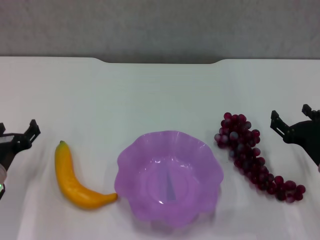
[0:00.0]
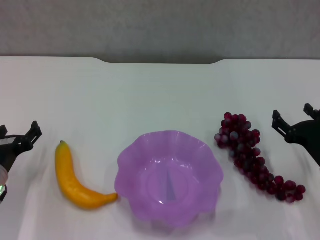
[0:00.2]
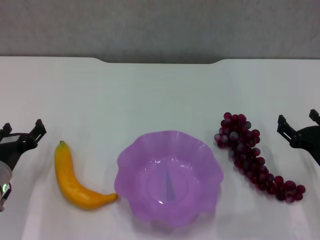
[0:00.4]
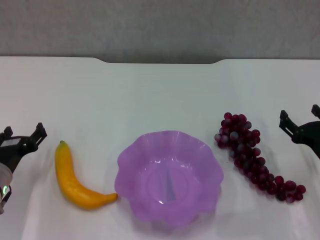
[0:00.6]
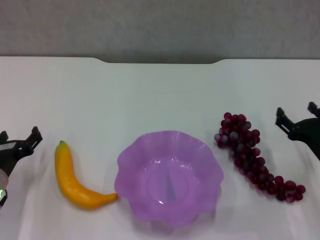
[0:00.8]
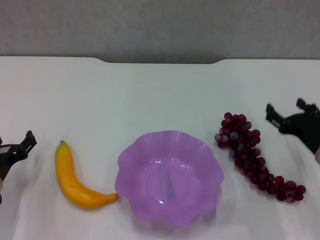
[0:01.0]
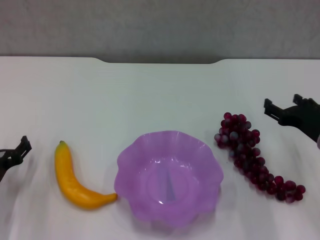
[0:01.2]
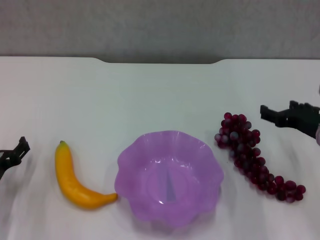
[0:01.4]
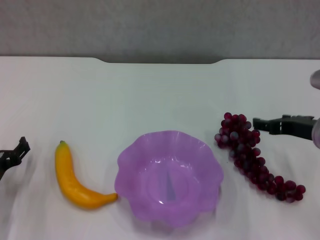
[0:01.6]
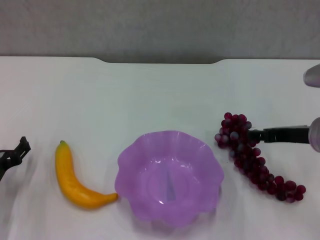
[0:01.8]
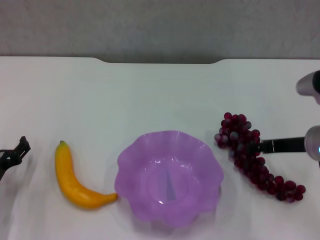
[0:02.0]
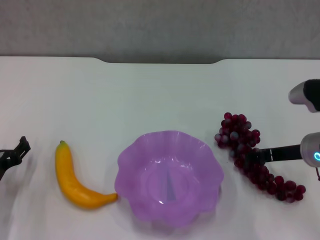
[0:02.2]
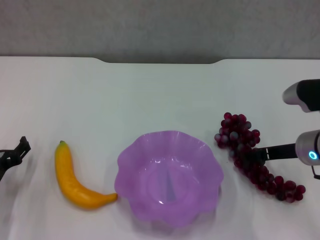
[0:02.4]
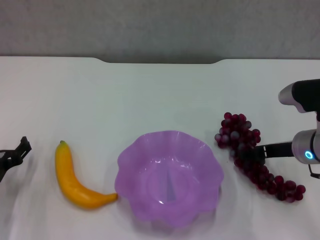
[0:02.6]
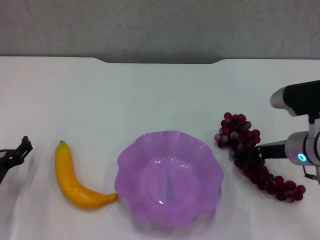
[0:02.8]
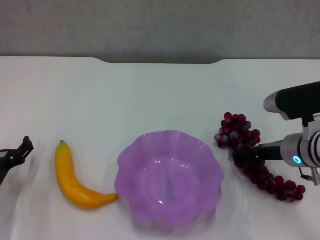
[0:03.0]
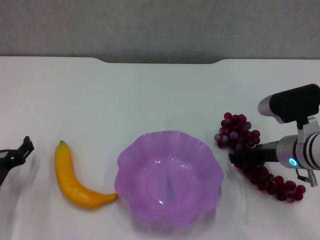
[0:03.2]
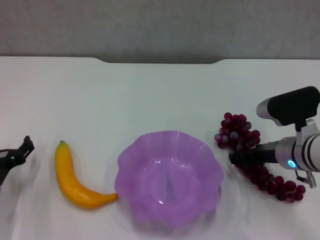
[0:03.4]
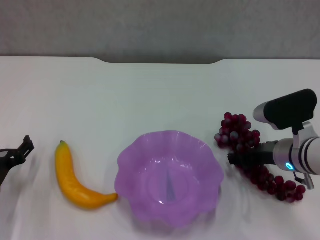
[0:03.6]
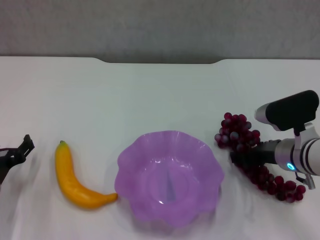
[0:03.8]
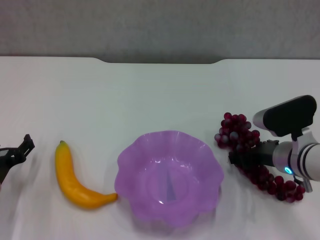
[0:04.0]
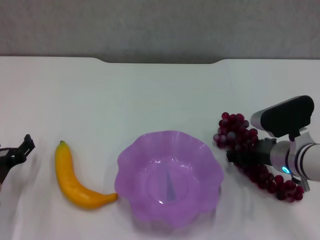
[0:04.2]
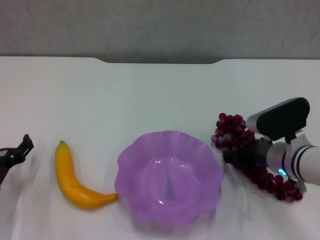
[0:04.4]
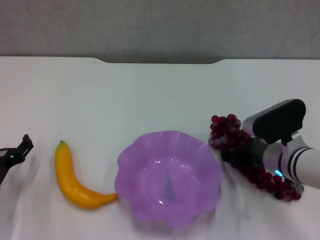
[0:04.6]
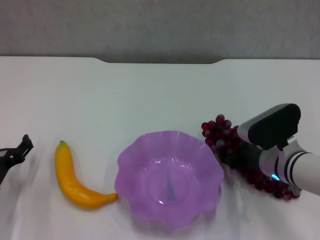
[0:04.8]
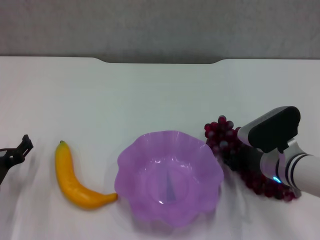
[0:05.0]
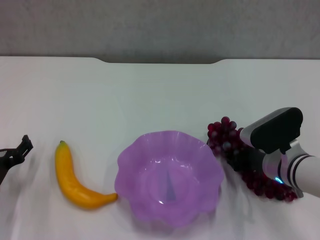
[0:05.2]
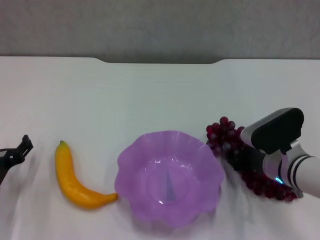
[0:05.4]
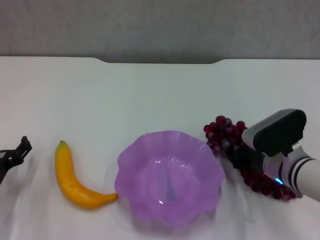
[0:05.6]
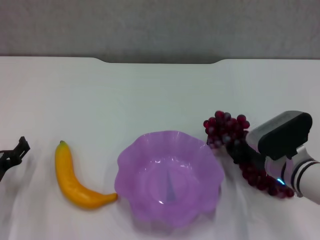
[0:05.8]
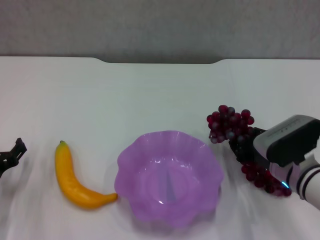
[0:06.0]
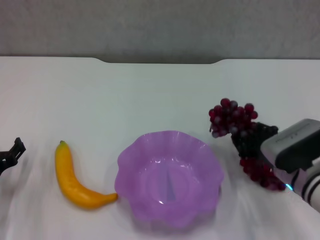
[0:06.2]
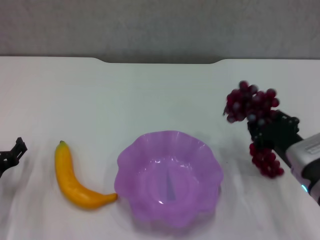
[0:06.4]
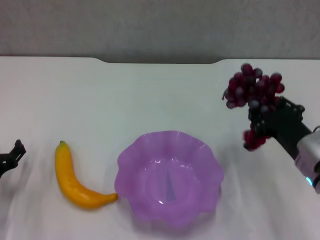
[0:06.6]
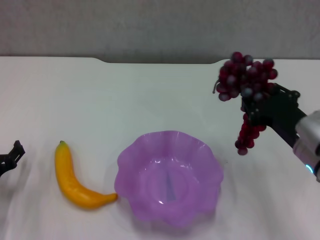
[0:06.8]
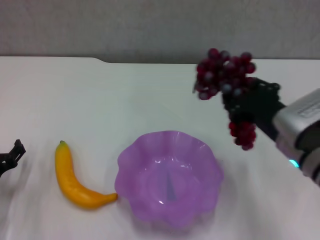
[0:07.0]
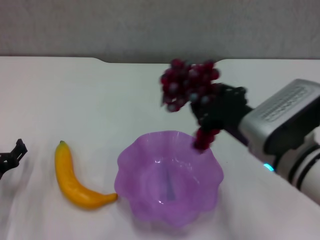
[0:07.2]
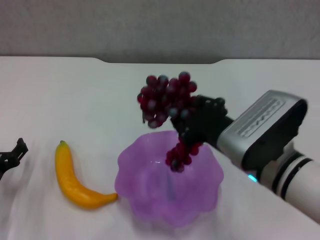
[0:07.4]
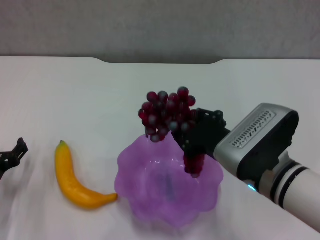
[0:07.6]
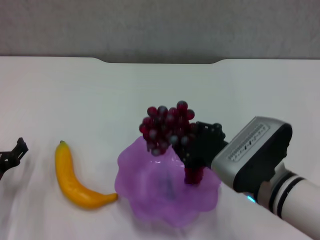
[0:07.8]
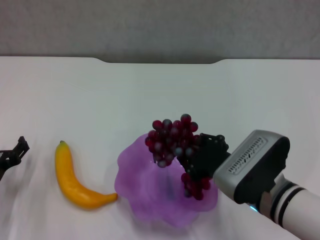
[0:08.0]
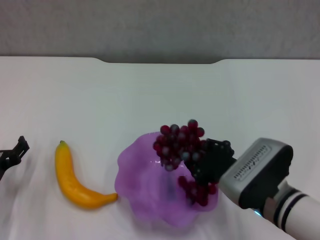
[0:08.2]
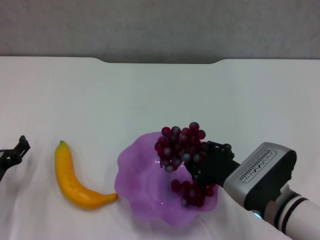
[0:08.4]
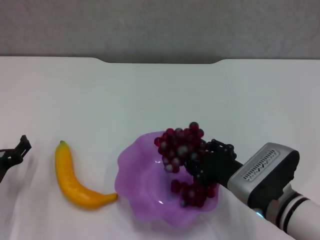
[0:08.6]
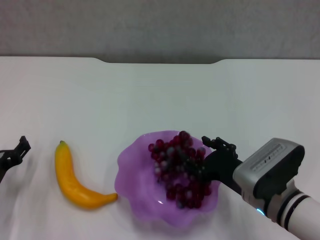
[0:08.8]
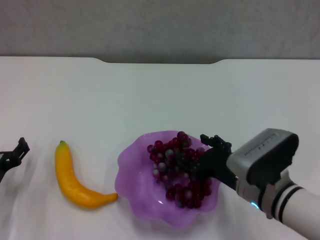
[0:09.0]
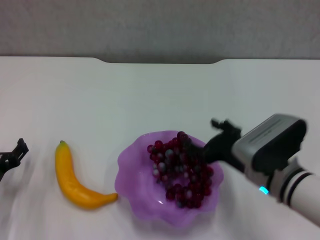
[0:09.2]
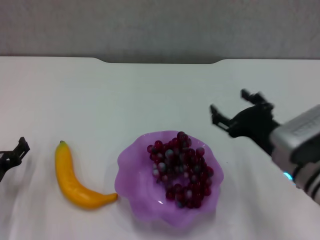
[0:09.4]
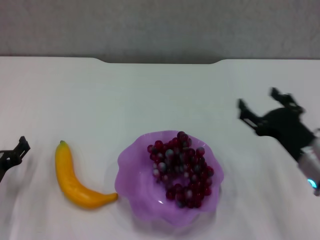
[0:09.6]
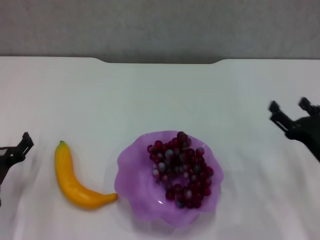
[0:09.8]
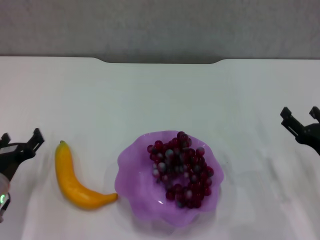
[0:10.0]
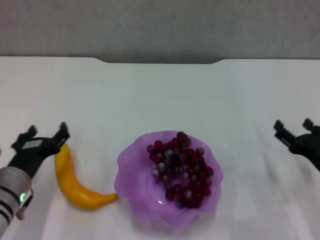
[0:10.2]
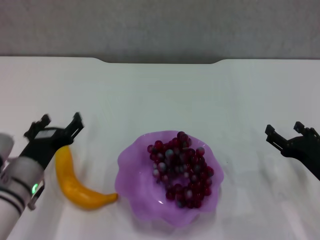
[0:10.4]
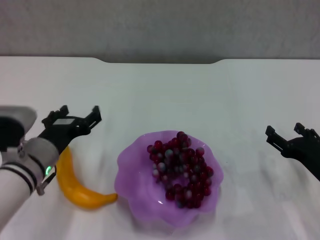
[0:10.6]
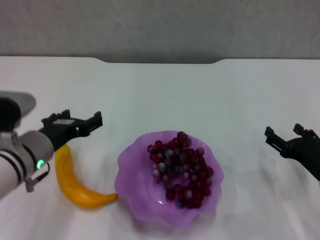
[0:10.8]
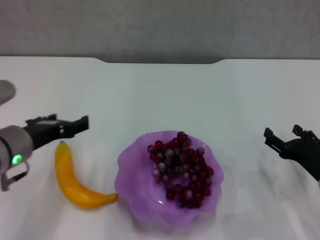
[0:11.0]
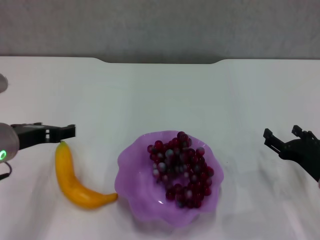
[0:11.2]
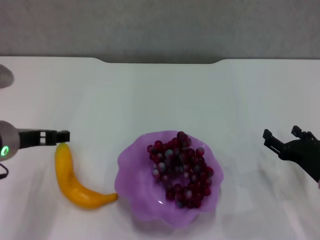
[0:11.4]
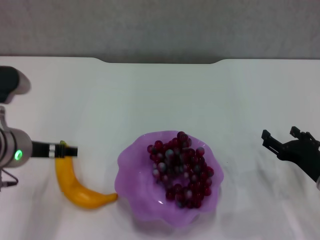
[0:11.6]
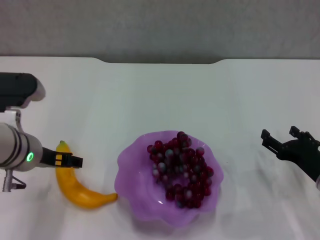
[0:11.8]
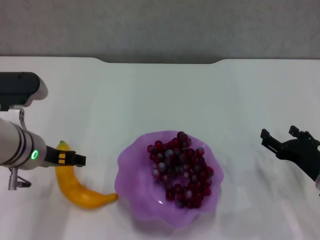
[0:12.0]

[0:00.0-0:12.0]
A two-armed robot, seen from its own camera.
Step, 0:00.0 to 0:05.2: Grasp the grape with right gripper.
Step, 0:05.4 to 0:09.2: Place the grape in the purple plate with right gripper.
0:00.0 to 0:01.6: The right gripper heads upward, covering some 10 cm.
0:01.6 to 0:03.0: The right gripper changes place by roughly 5 cm.
0:03.0 to 0:04.4: The grippers make only small movements.
0:04.4 to 0:06.0: The right gripper closes its fingers.
0:06.0 to 0:07.6: The right gripper heads upward, to the left and backward, covering approximately 15 cm.
0:07.6 to 0:09.0: The right gripper heads downward, covering roughly 5 cm, and opens up.
0:09.0 to 0:10.4: The right gripper moves to the right, approximately 15 cm, while the left gripper is displaced to the right by approximately 10 cm.
0:10.4 to 0:12.0: The left gripper shifts approximately 10 cm upward.

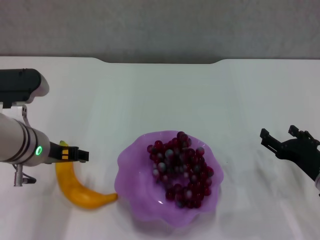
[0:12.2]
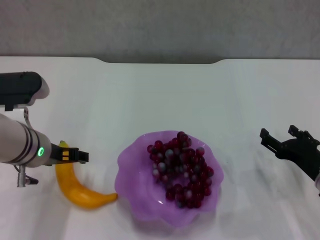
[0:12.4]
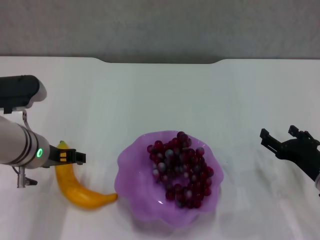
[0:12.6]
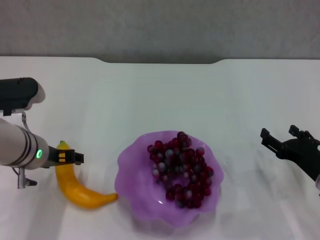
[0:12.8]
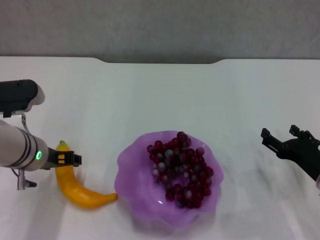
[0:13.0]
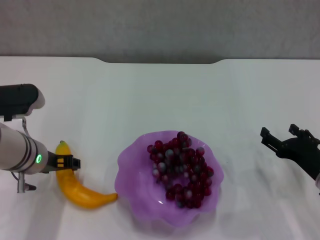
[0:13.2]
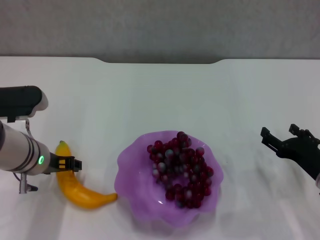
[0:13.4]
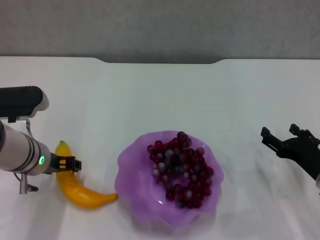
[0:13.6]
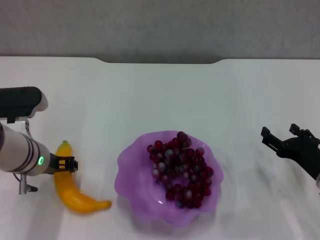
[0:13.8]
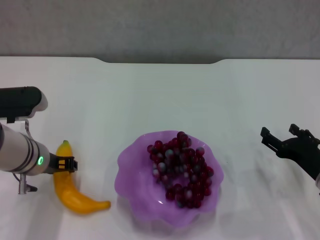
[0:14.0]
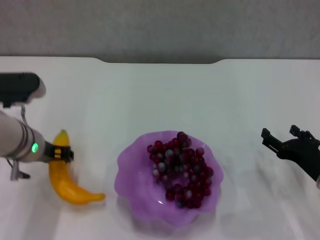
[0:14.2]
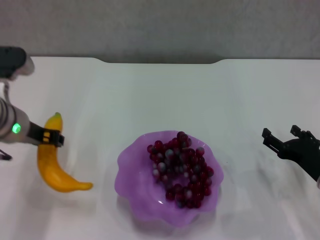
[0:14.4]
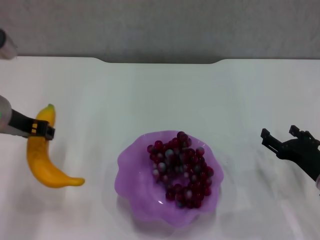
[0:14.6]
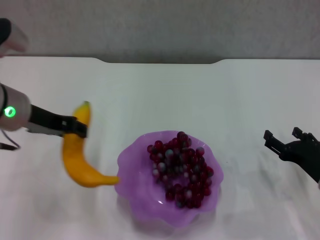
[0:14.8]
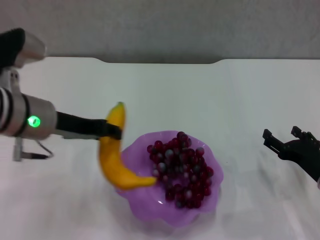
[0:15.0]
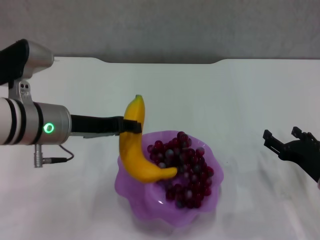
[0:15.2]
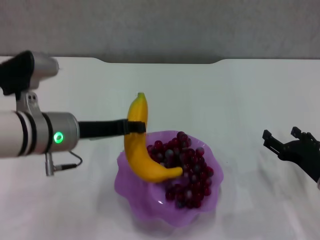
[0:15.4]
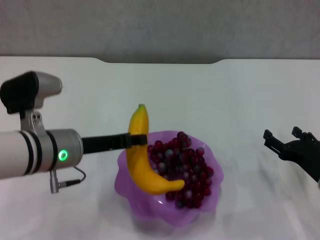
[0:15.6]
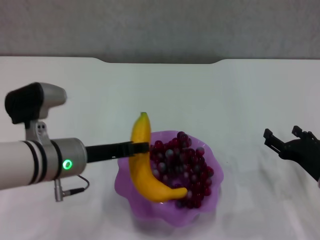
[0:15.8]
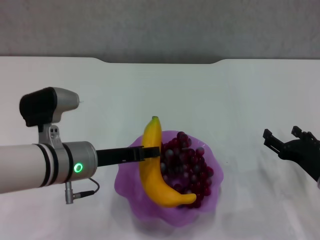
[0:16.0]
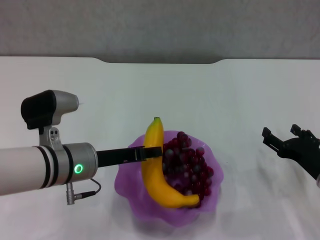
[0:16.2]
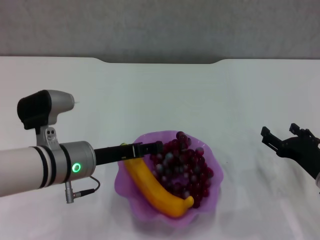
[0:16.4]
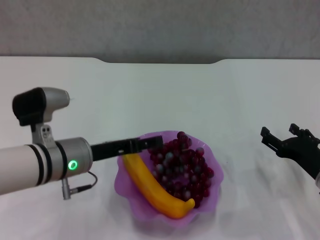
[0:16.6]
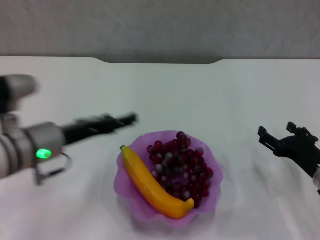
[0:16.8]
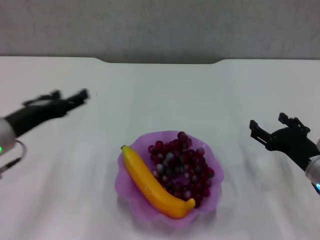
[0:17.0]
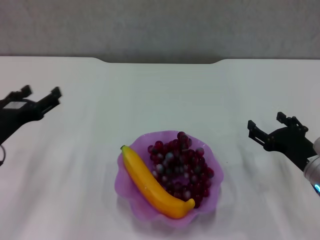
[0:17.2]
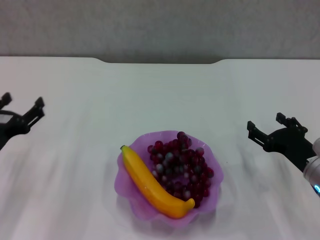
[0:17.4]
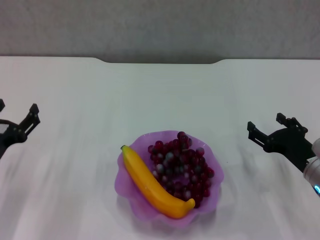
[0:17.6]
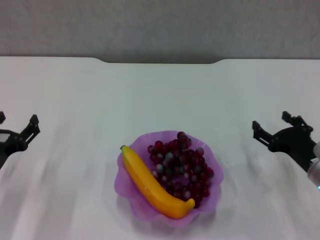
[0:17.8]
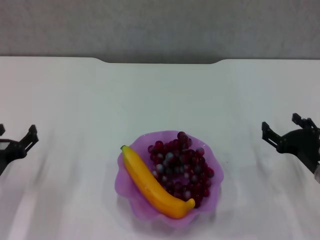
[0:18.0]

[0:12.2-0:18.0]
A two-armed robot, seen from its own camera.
Step, 0:14.0 to 0:16.6: Place the banana in the purple plate with left gripper.
0:12.2 to 0:13.6: The grippers make only small movements.
0:13.6 to 0:15.0: The left gripper heads upward, covering roughly 10 cm, and closes.
0:15.0 to 0:16.6: The left gripper heads downward, covering about 10 cm, and opens up.
0:16.6 to 0:18.0: The left gripper moves to the left and downward, some 15 cm, and opens.

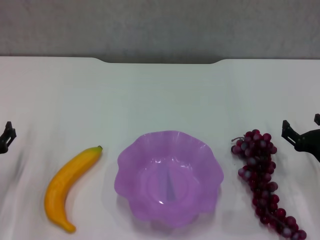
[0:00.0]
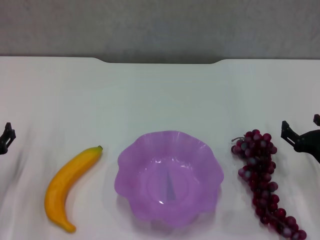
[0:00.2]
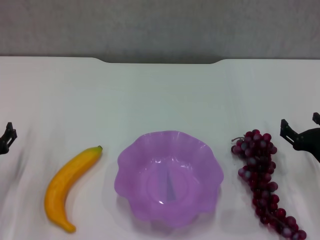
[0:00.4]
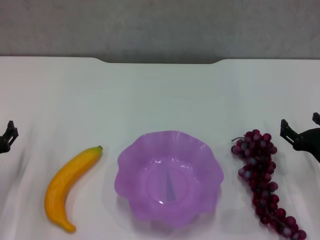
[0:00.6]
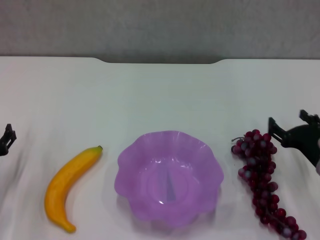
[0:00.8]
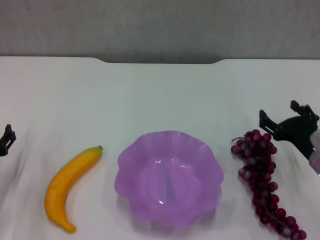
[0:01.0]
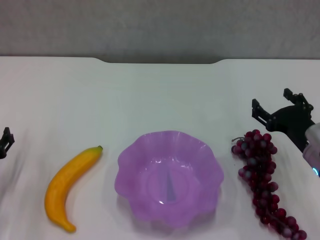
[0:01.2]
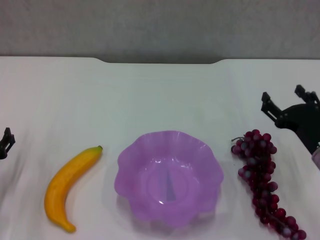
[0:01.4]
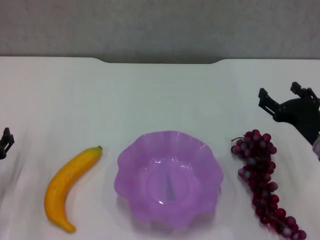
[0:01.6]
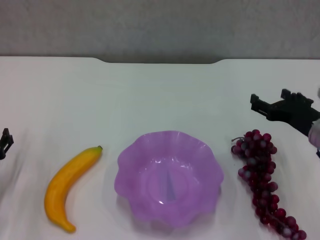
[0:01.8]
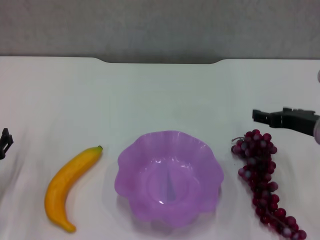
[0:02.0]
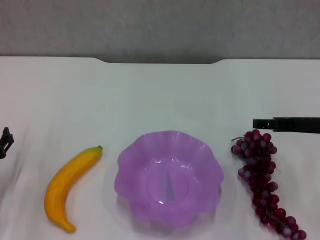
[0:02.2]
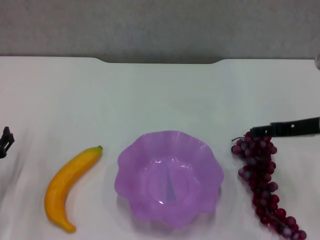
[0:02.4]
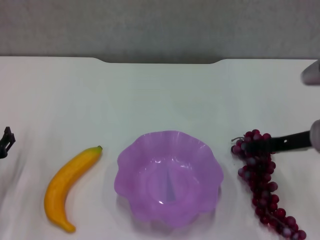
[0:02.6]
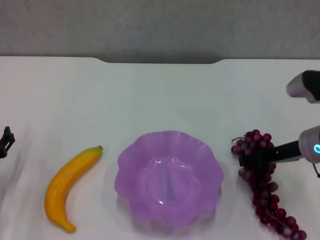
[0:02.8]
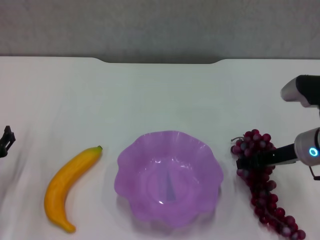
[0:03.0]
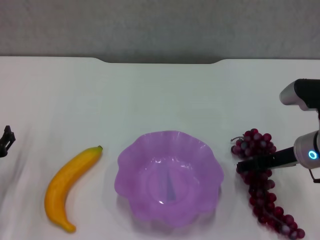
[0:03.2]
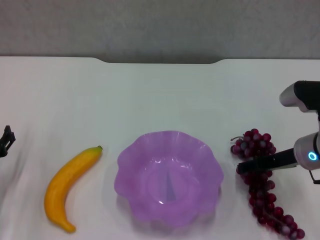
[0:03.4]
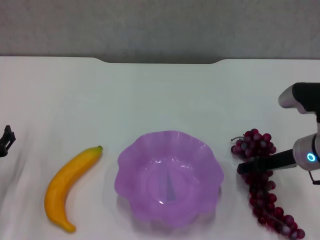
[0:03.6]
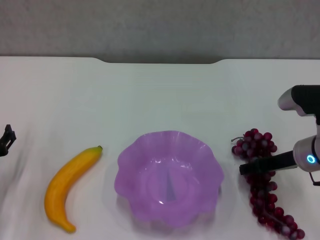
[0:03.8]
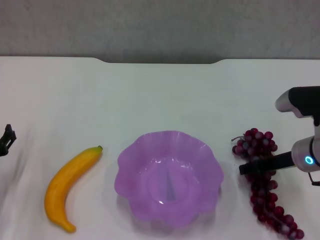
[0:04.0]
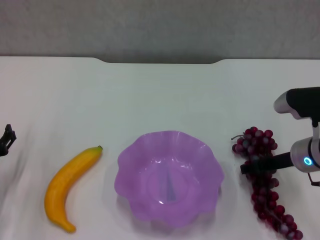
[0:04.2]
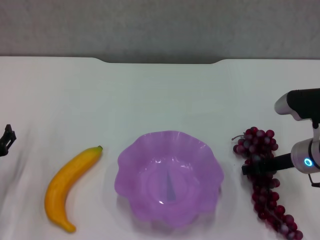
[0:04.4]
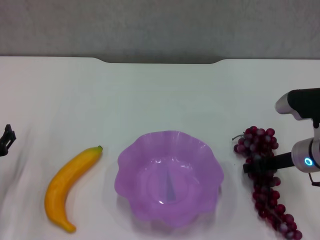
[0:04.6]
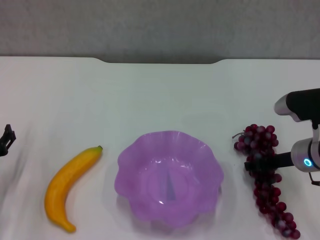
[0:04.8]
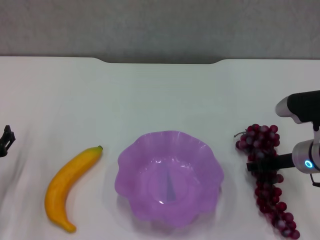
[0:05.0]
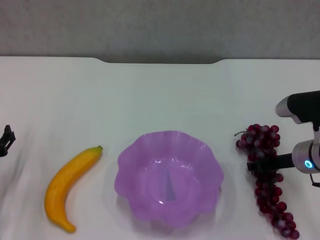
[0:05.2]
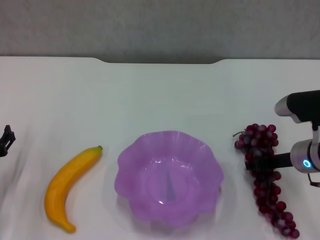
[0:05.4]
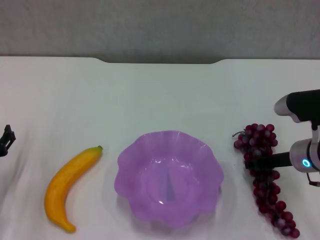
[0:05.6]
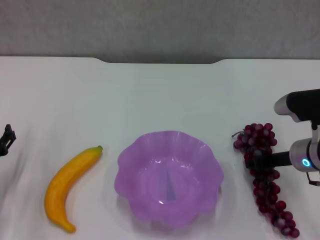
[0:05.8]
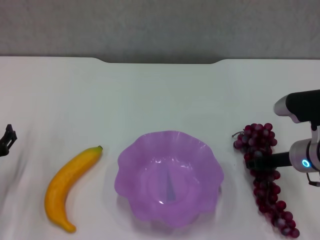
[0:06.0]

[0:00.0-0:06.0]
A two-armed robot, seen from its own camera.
Step, 0:00.0 to 0:05.2: Grasp the grape with right gripper.
0:00.0 to 0:01.6: The right gripper goes approximately 5 cm upward.
0:01.6 to 0:03.0: The right gripper reaches about 10 cm upward, then returns.
0:03.0 to 0:04.4: There are only small adjustments of the grippers.
0:04.4 to 0:06.0: The right gripper closes up.
